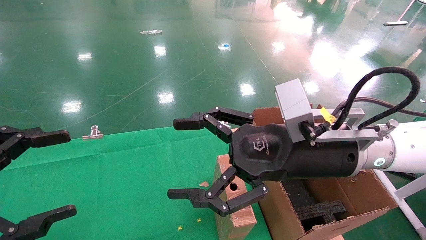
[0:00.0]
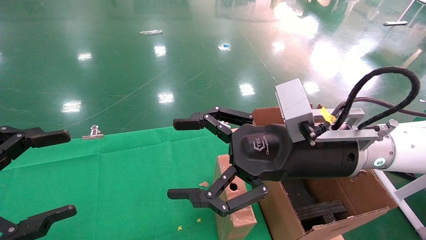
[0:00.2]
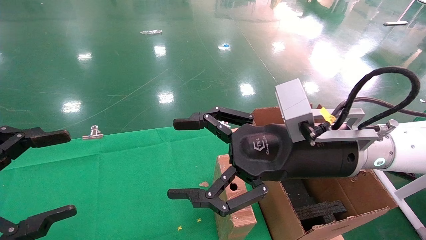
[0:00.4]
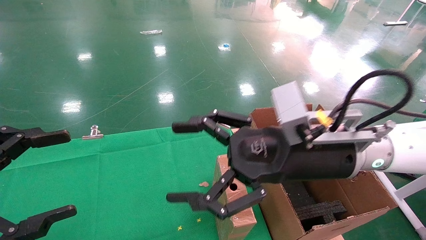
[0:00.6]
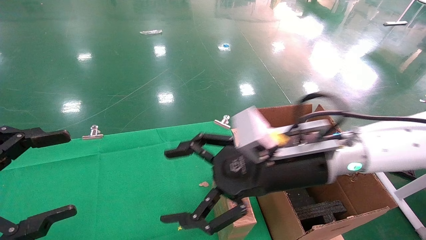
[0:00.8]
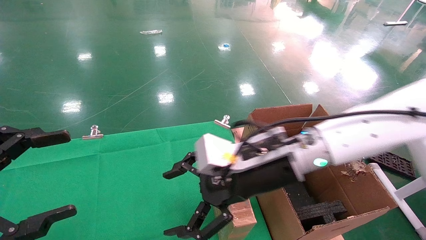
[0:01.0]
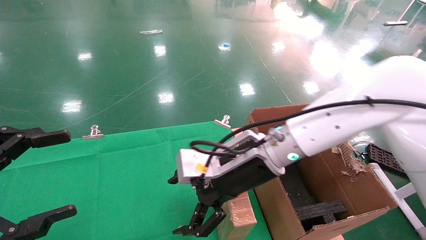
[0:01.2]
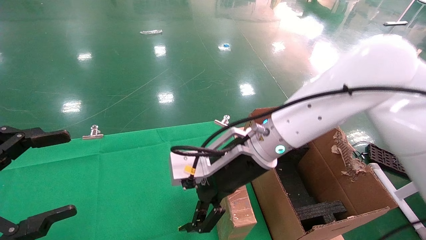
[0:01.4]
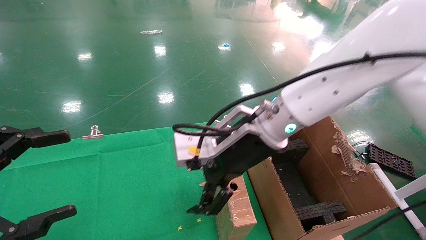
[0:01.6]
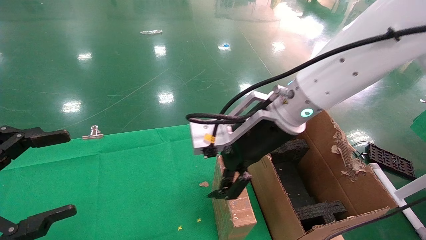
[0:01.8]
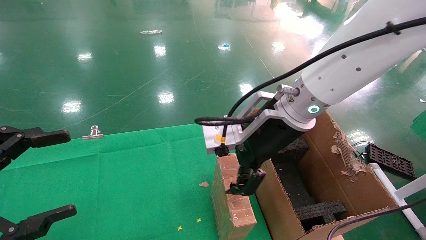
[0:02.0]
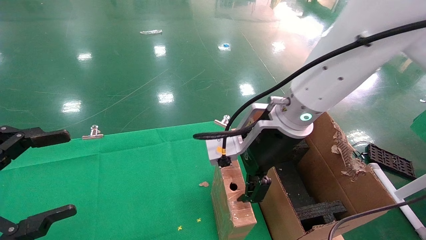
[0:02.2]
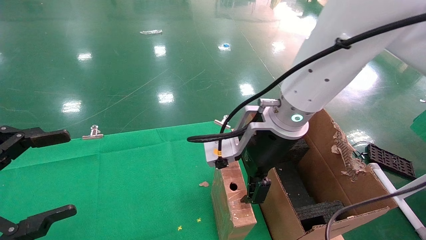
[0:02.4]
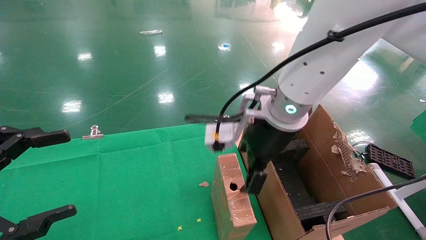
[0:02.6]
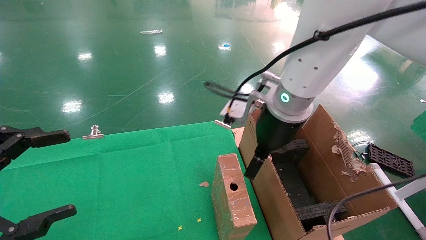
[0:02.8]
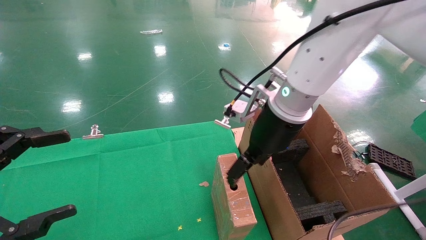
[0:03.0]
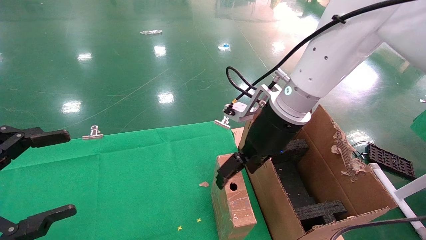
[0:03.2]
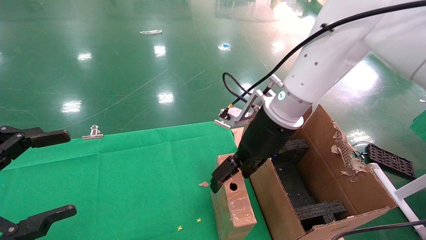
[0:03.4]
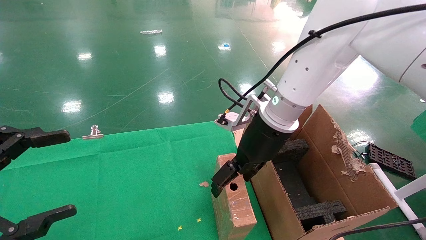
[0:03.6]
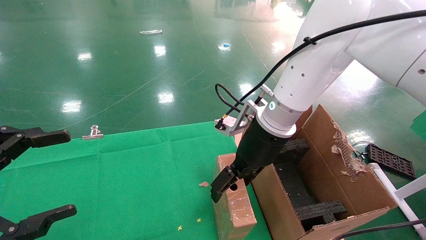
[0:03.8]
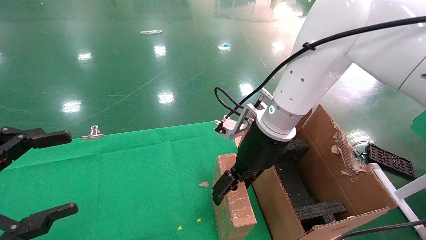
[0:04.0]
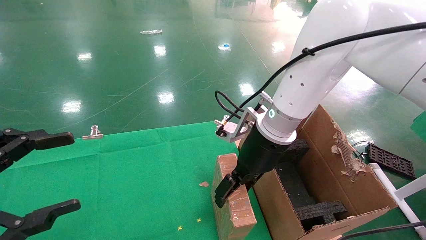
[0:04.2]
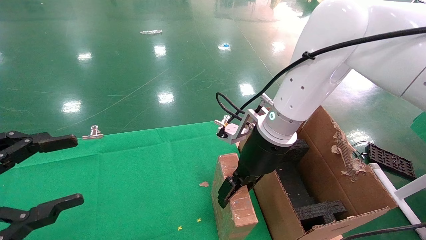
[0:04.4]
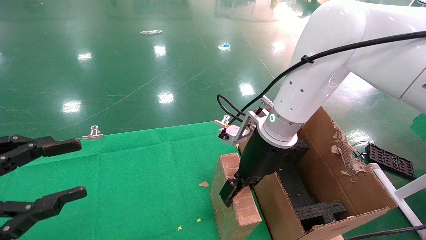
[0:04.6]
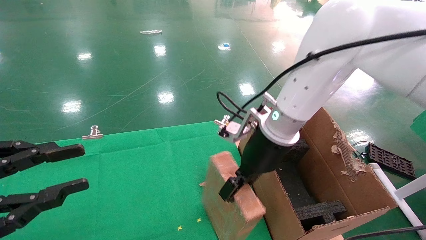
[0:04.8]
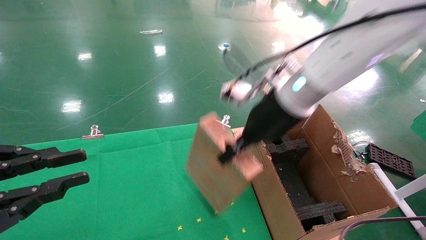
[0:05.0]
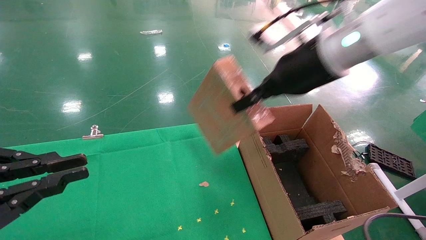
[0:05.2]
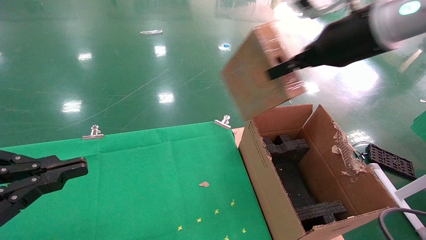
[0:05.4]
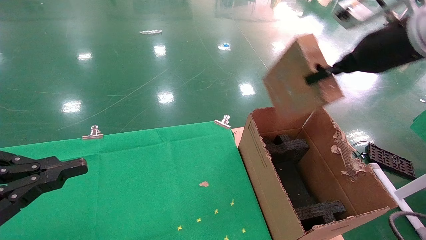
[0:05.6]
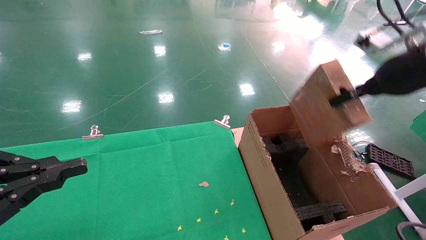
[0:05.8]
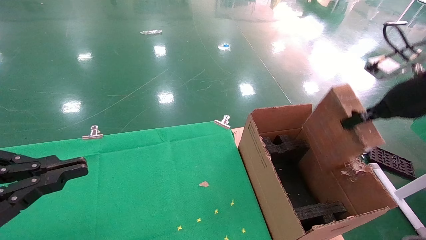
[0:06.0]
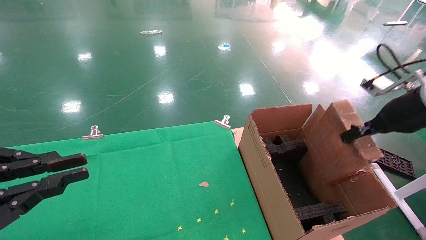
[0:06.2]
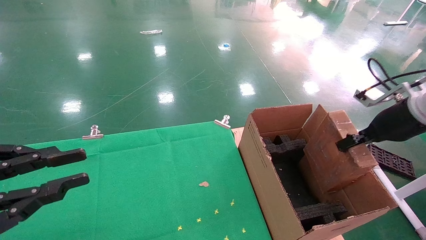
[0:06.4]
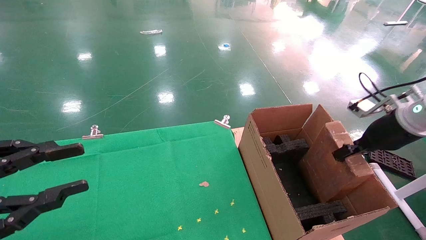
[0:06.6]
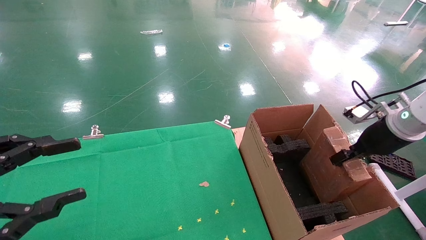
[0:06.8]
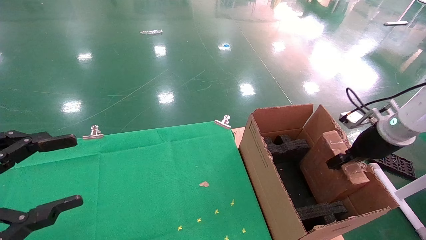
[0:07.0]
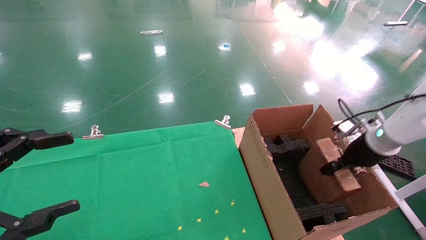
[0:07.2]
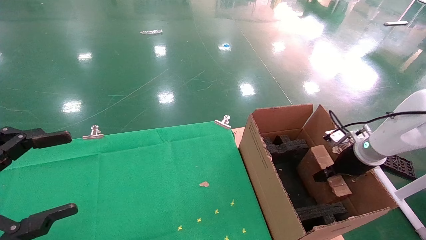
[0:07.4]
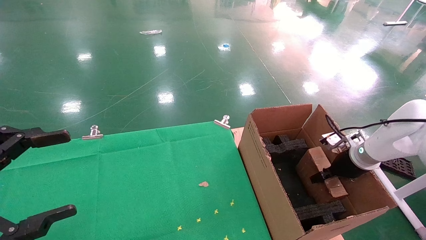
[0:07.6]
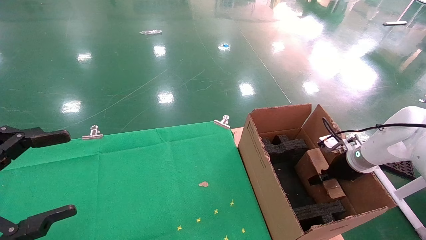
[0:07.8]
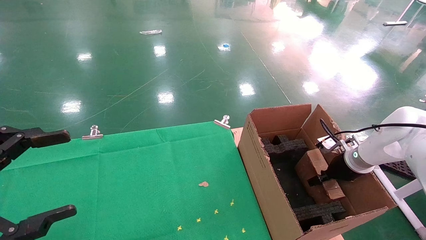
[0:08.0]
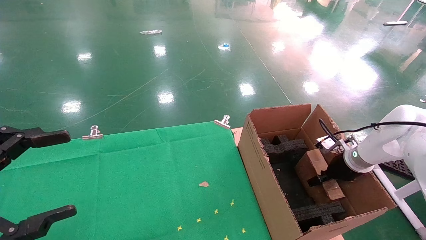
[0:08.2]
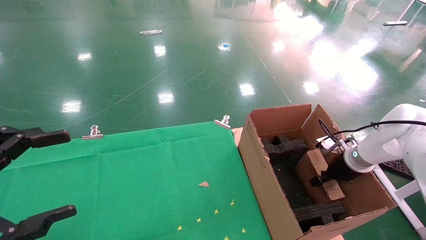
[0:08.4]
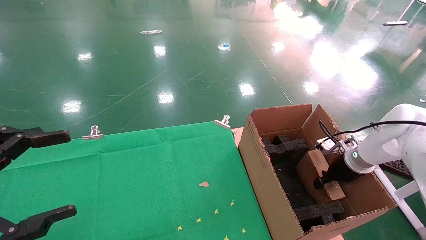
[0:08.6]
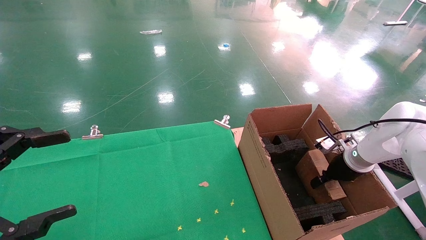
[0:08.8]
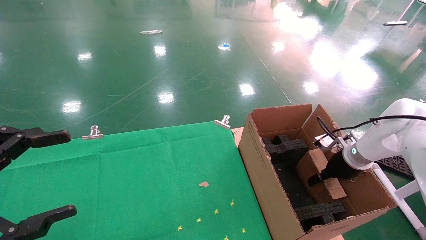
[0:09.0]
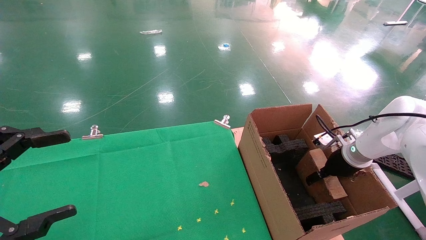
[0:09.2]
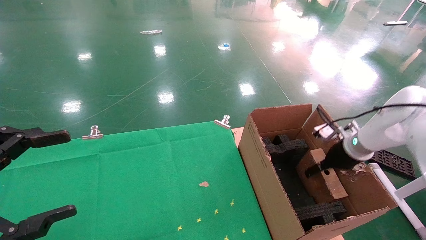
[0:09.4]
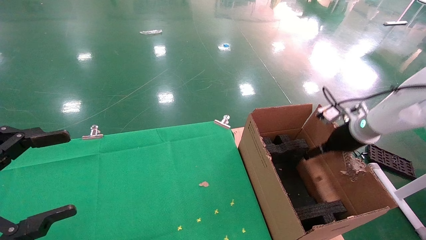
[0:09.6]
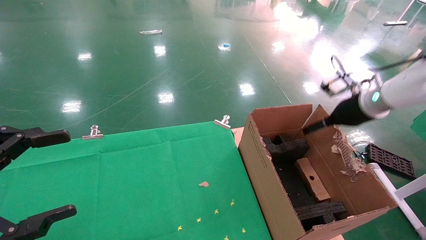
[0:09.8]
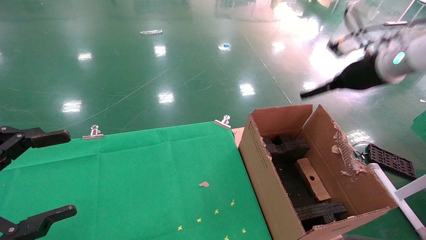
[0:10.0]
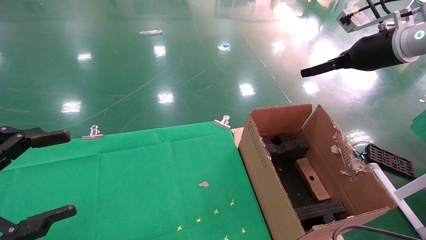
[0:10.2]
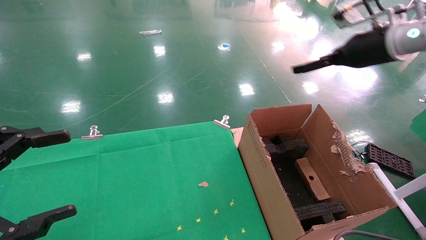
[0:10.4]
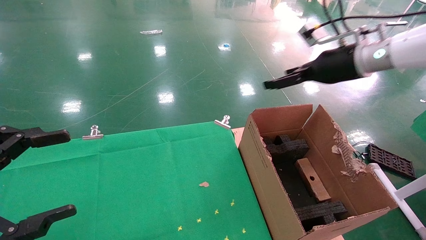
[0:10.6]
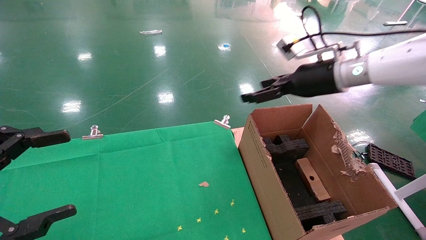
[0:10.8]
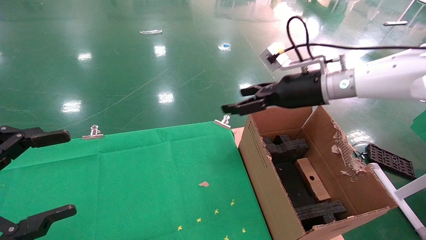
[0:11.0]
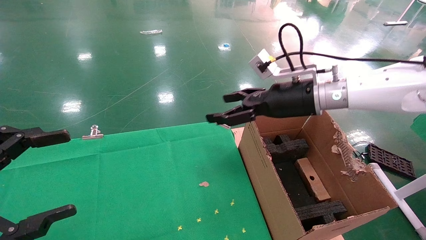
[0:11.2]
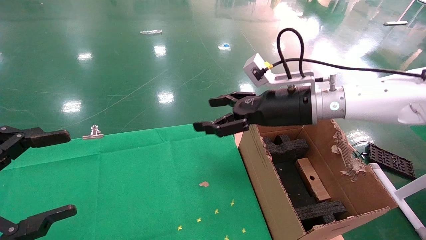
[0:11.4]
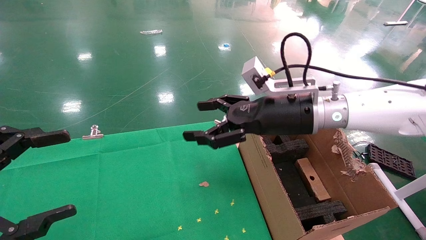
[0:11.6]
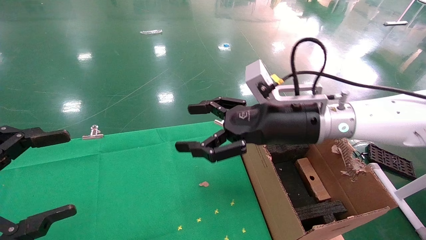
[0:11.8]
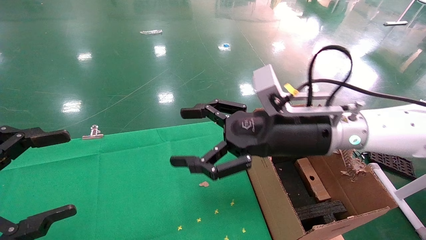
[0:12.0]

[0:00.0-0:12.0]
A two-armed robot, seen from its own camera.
Task of the whole recording: using a robotic arm to pick up a cardboard box and palace it the carton.
Step, 0:01.0 to 0:04.6: Pick up the mouse and the power cord paper box.
Step, 0:04.8 to 0:10.0: Place the mouse and the power cord paper box into the container.
0:00.0 to 0:01.6: The right gripper shifts some 10 cm to the left and forward.
0:03.0 to 0:04.4: There are only small adjustments of the grippers.
0:04.4 to 0:06.0: The left gripper closes its fingers, while the right gripper goes about 25 cm to the right, and closes its fingers.
0:06.0 to 0:07.6: The right gripper goes some 25 cm downward and forward, while the left gripper opens its fingers.
0:07.6 to 0:09.0: The right gripper opens.
0:09.0 to 0:10.4: The right gripper heads upward, covering roughly 25 cm, and opens its fingers.
0:10.4 to 0:12.0: The right gripper moves to the left, backward and downward, some 25 cm.

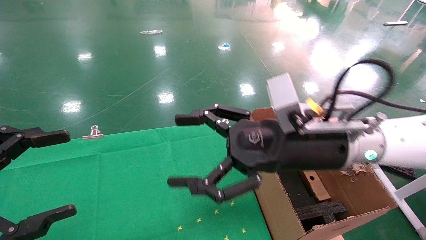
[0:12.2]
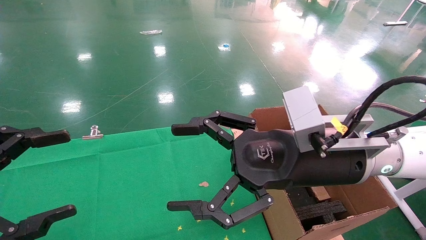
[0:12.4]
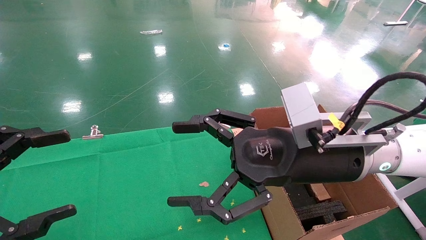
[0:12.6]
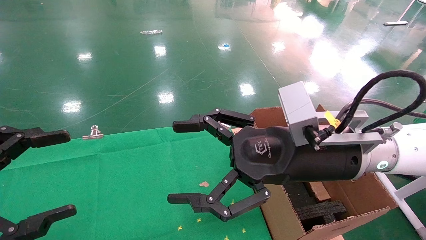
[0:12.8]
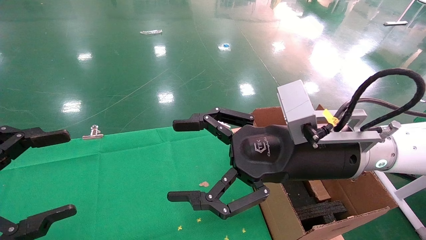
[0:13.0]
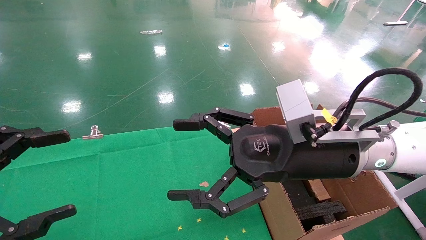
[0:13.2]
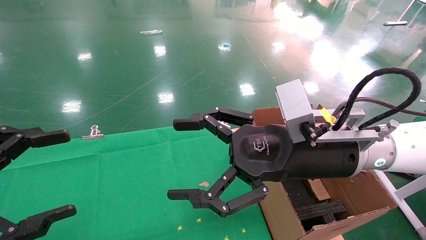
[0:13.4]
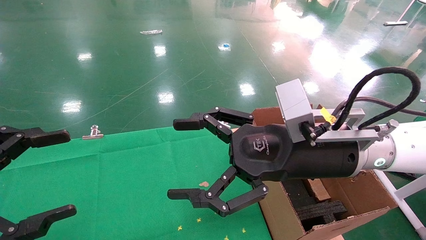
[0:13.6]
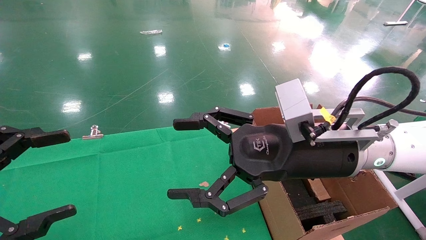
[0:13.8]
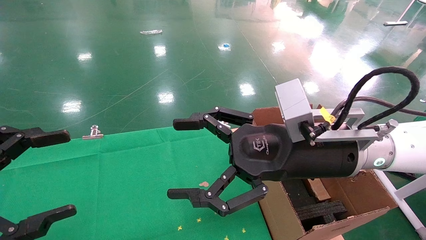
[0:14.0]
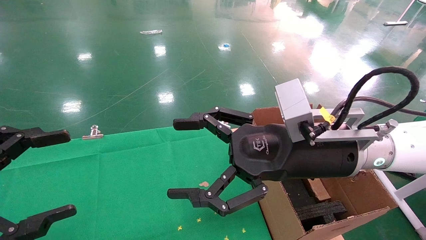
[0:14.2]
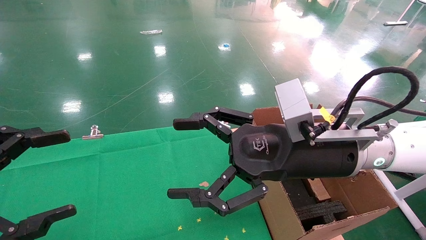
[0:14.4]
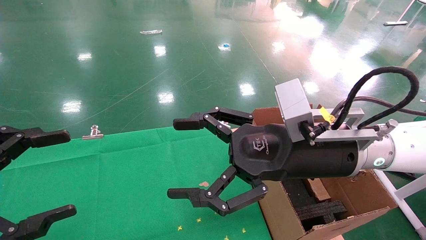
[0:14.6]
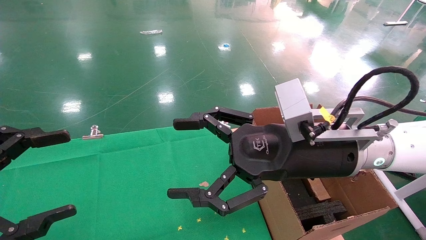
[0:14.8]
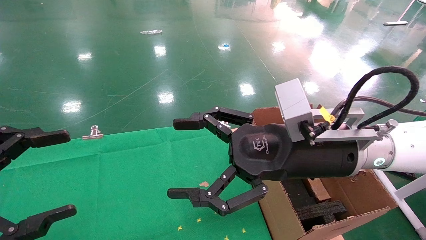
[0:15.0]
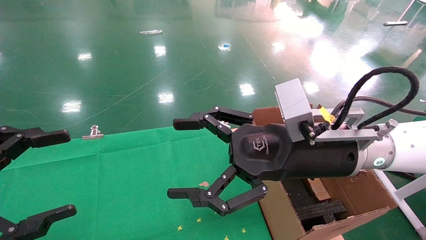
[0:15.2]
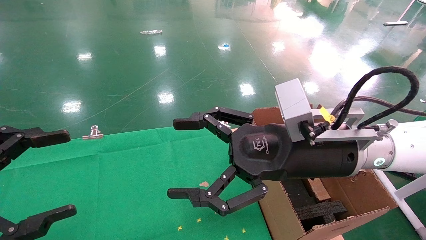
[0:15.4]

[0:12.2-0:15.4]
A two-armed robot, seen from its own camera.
Task of the whole recording: using a robotic arm to pick up a cardboard box and palace it the carton.
0:12.2 to 0:13.8: The grippers move only a little.
0:13.8 to 0:15.4: Both grippers stay put.

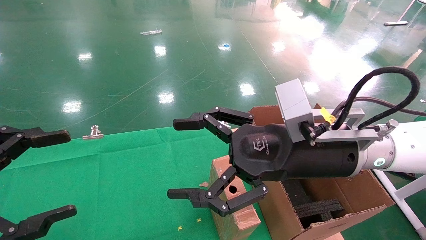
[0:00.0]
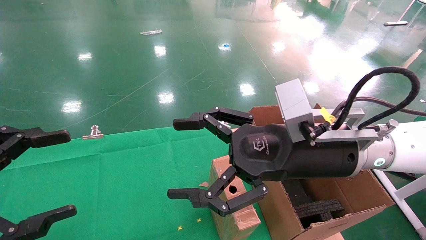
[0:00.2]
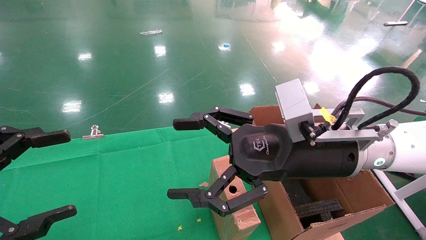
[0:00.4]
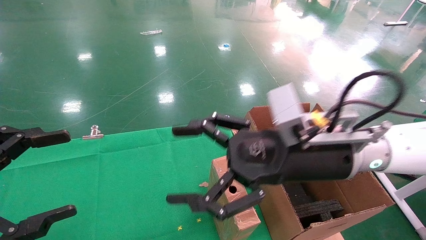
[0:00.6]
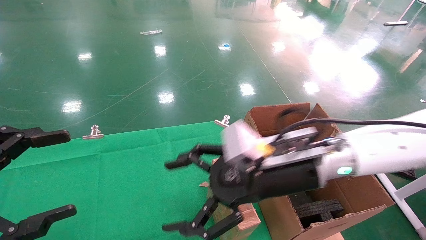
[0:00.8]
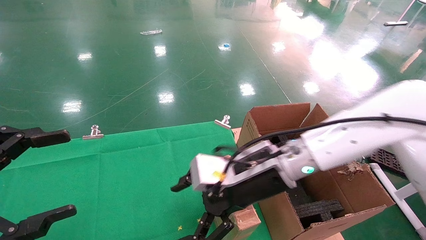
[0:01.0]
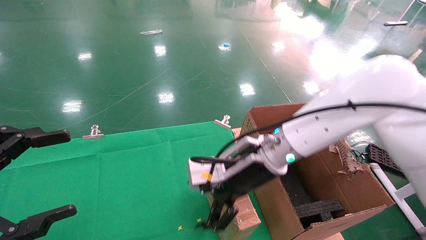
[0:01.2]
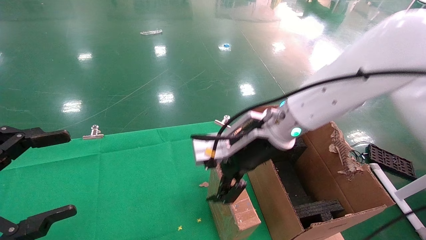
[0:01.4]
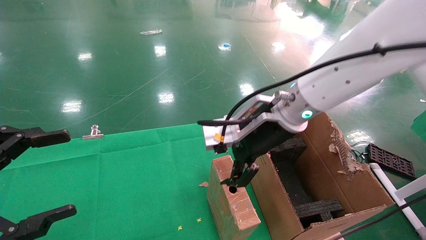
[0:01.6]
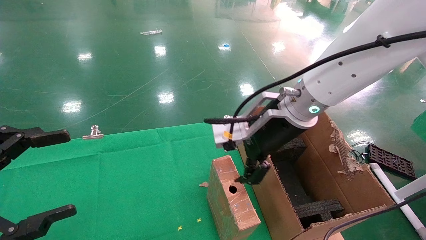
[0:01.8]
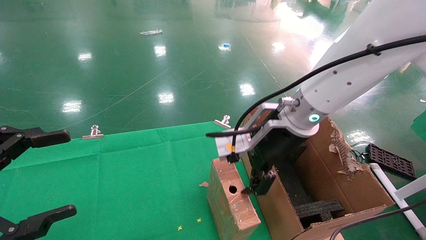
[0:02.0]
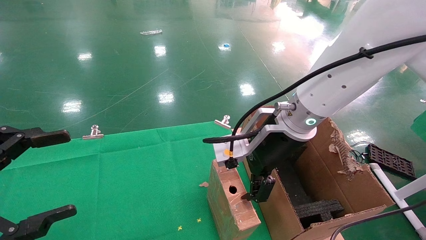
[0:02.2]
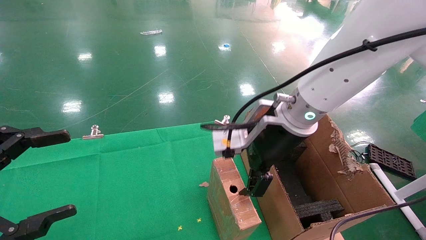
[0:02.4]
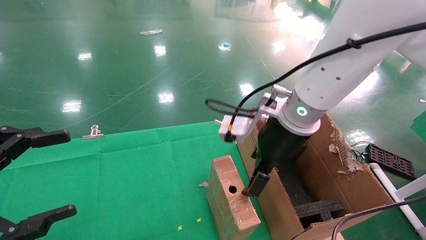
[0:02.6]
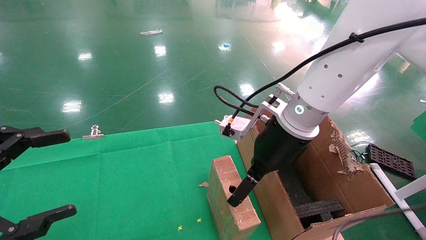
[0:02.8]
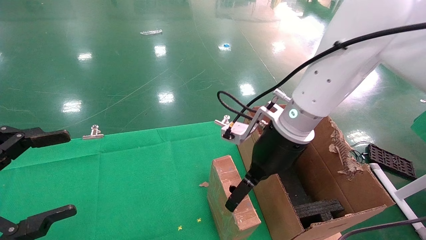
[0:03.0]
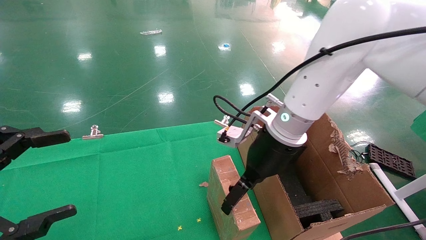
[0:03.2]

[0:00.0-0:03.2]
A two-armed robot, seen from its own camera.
Task of the whole recording: using a robotic arm to pick up a cardboard box and palace it the carton.
0:00.0 to 0:01.6: The right gripper shifts roughly 10 cm forward.
